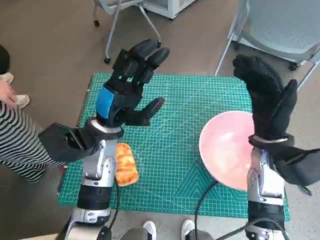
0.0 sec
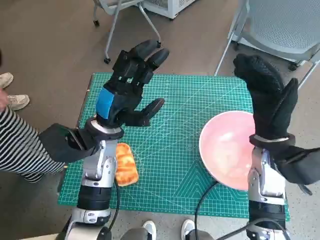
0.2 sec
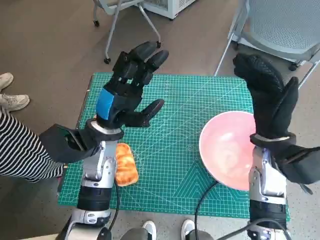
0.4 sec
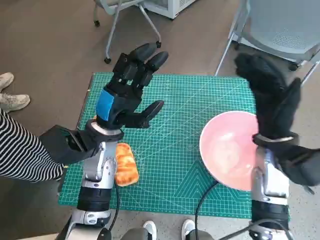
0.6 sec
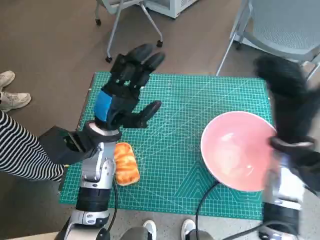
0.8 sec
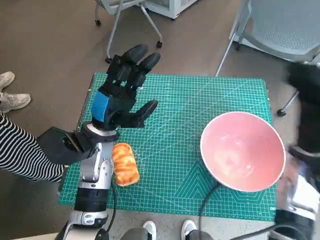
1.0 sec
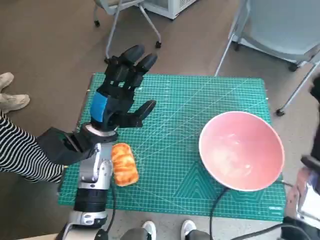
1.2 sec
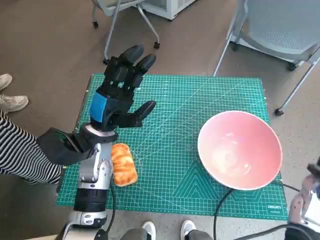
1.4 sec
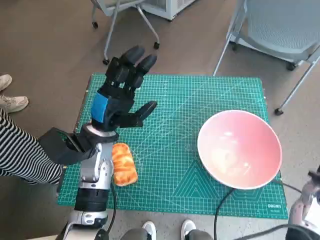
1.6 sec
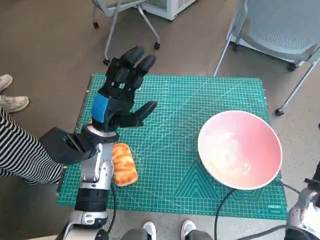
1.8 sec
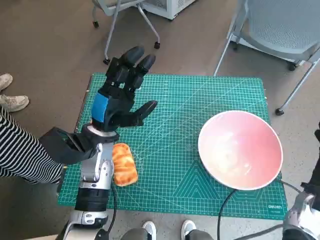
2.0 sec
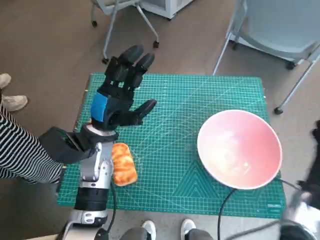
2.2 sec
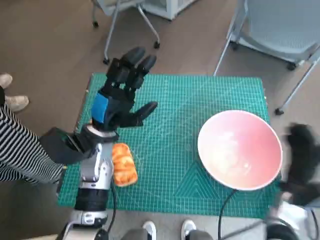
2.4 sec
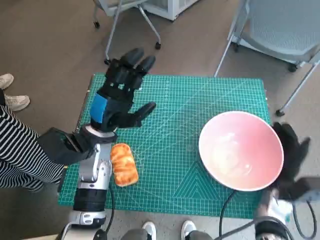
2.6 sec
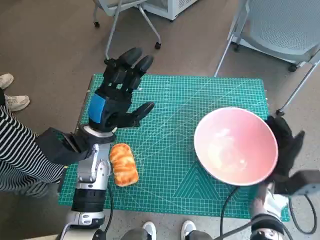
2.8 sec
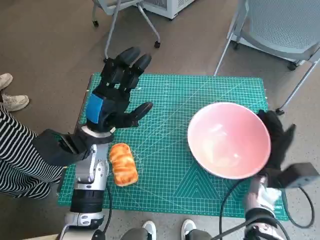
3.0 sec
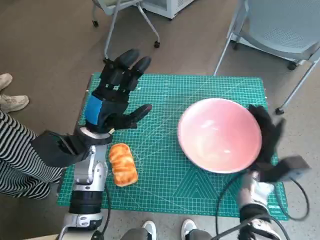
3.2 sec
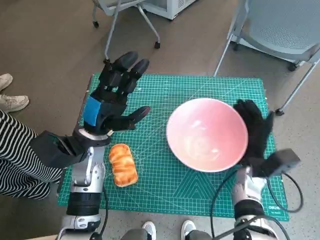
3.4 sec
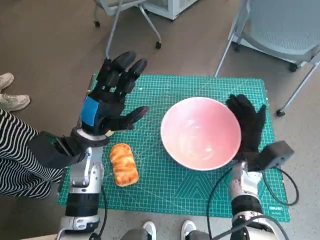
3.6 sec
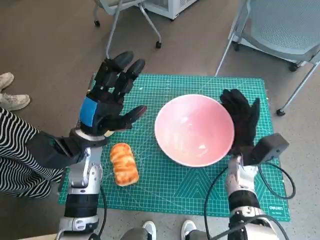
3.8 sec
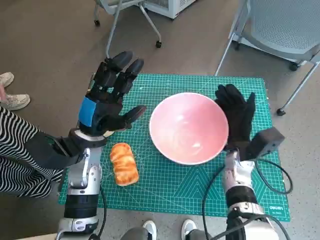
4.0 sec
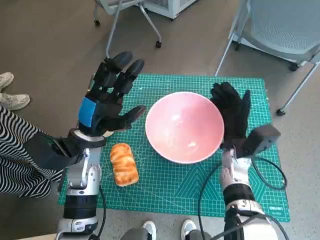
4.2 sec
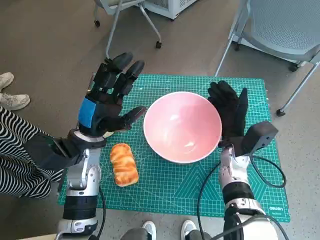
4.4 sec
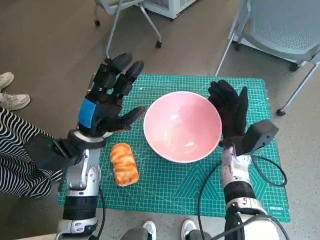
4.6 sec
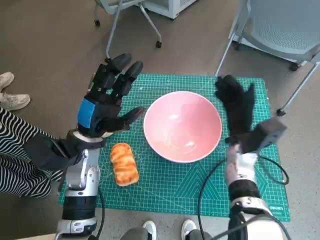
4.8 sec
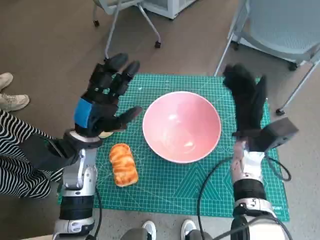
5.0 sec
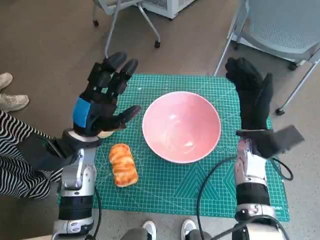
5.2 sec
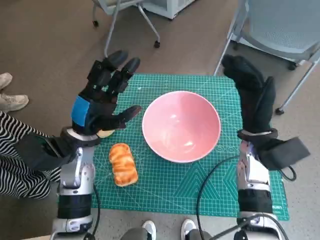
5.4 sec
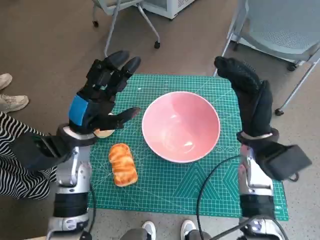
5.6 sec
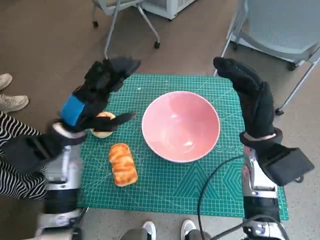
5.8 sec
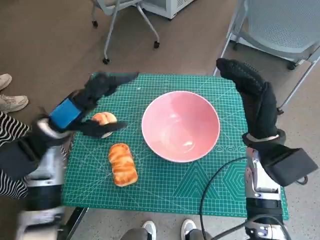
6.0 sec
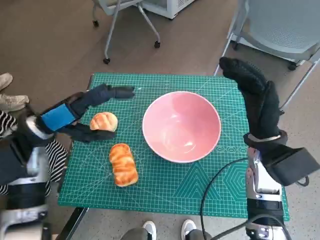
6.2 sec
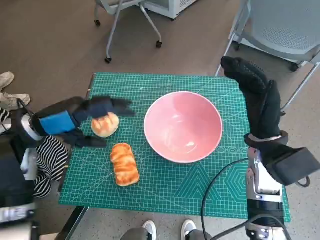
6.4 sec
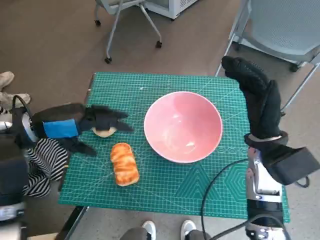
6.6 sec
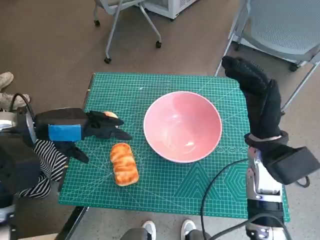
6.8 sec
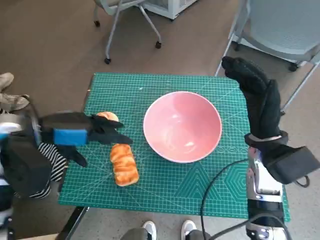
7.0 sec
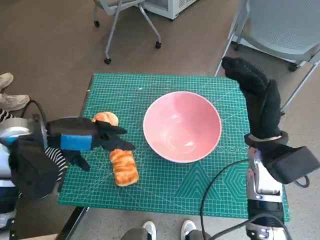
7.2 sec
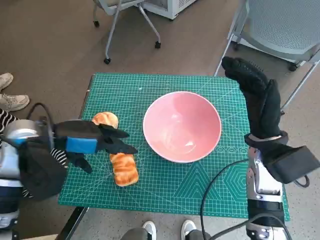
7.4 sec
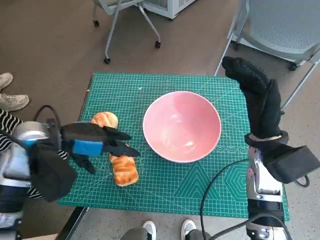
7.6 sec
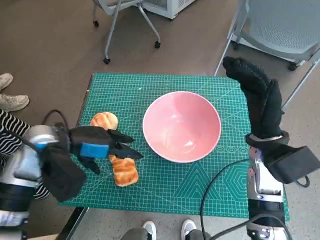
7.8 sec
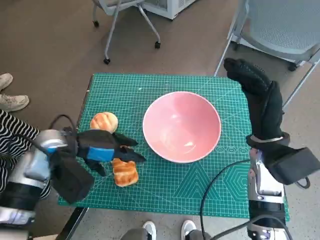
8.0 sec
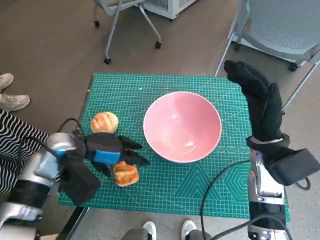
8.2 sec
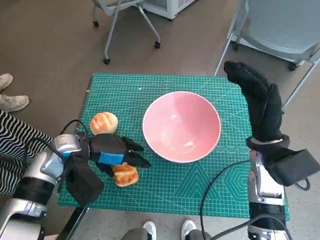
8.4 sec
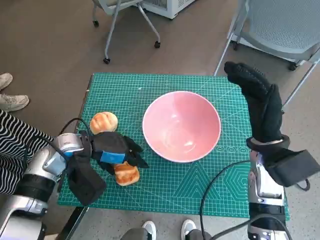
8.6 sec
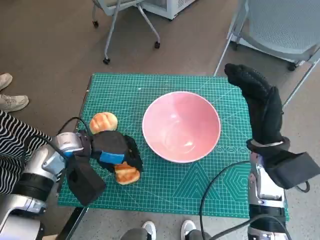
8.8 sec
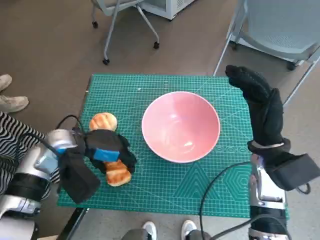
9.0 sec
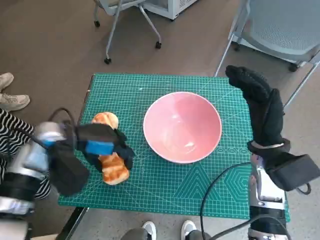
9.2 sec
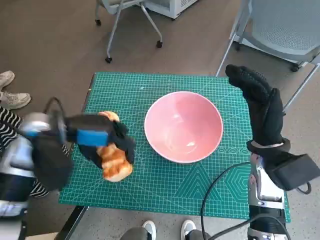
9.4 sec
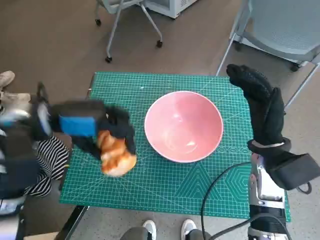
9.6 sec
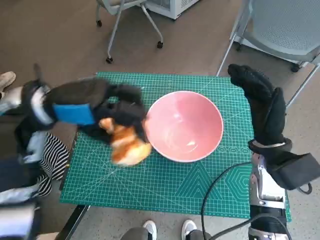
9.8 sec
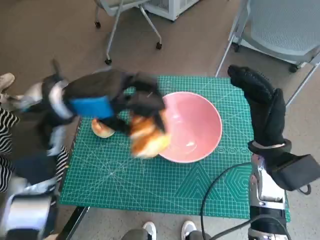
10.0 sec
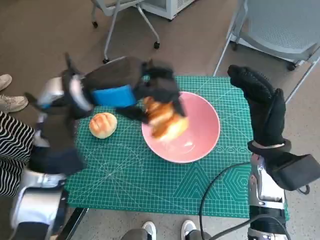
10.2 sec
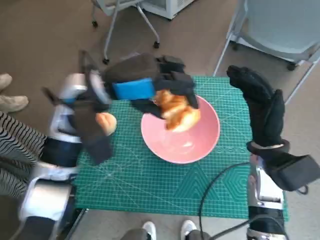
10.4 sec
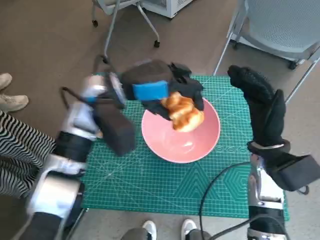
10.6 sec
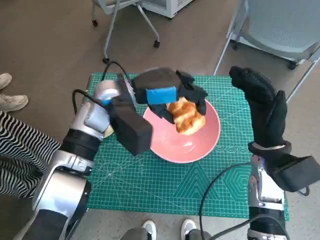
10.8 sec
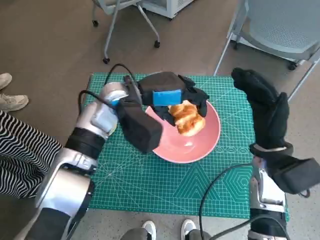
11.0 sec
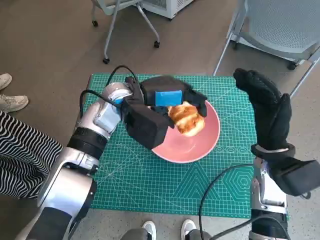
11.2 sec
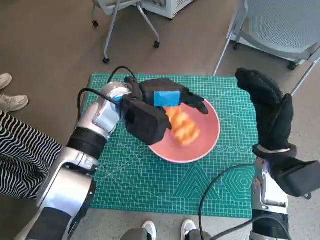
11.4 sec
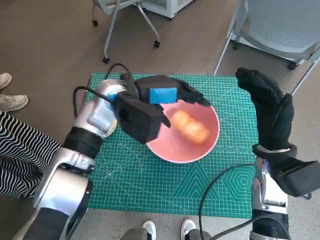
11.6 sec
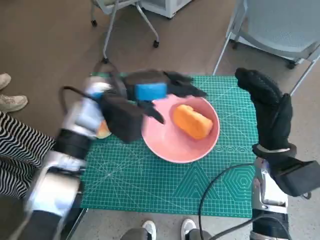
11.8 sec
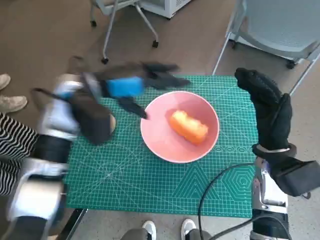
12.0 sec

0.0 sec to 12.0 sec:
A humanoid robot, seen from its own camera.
Task of the whole recording: Push the bowl into the center of the table and put the bread into the bowl.
Step, 0.0 sec to 4.6 sec: Move the pink bowl to the center of table with right hand.
Step, 4.8 sec to 8.8 sec: Grasp the long bread with left hand.
Step, 9.0 sec to 11.6 sec: Place the long bread in pink bowl with left hand.
1.6 sec to 3.0 sec: The right hand travels downward and to the left by roughly 10 cm.
3.0 sec to 4.4 sec: The right hand is displaced to the left and forward by some 10 cm.
4.4 sec to 6.0 sec: The left hand changes place by some 5 cm; the right hand goes about 10 cm upward.
7.6 sec to 9.0 sec: The left hand shifts about 5 cm downward.
9.0 sec to 10.4 sec: The left hand shifts roughly 15 cm upward and to the right.

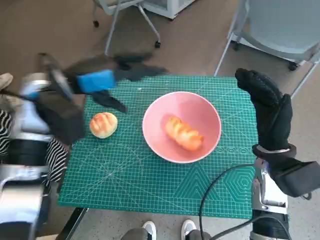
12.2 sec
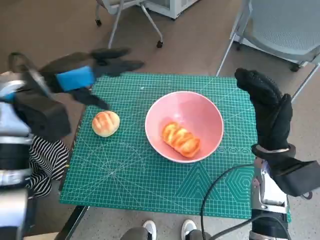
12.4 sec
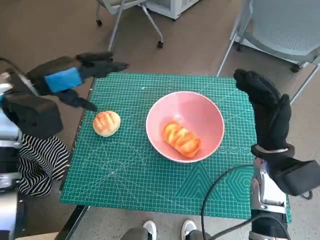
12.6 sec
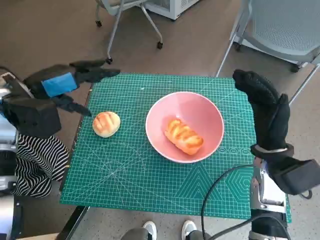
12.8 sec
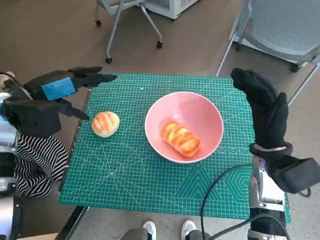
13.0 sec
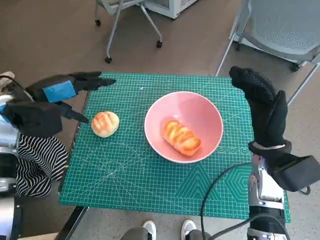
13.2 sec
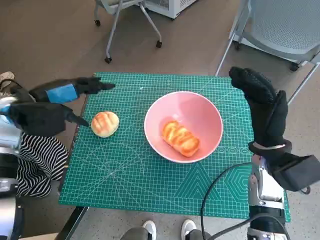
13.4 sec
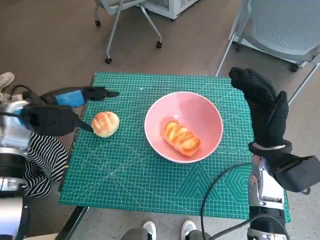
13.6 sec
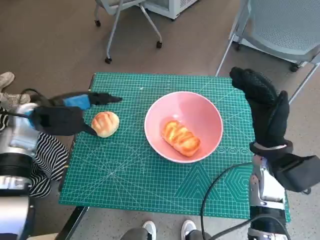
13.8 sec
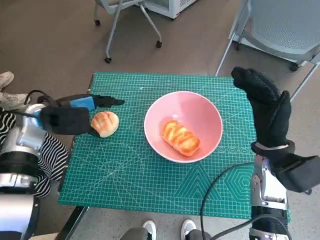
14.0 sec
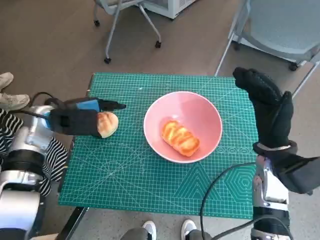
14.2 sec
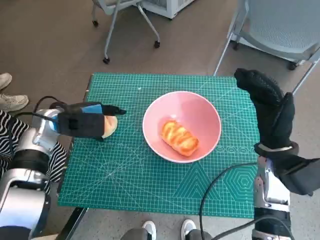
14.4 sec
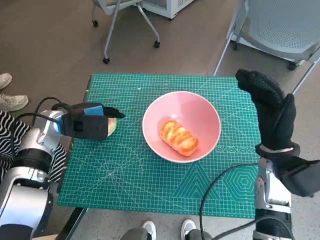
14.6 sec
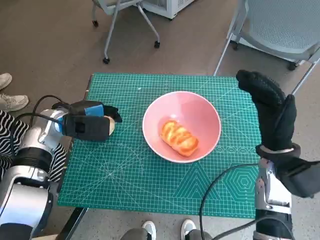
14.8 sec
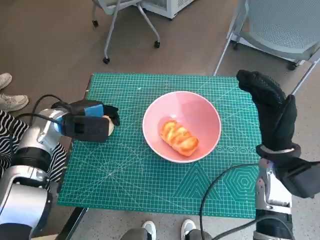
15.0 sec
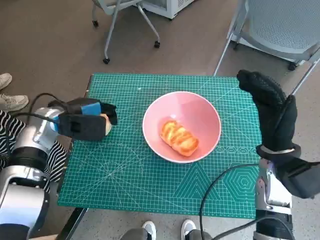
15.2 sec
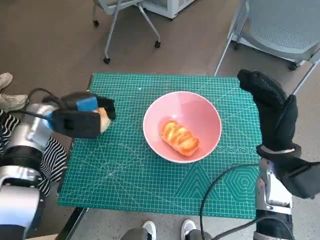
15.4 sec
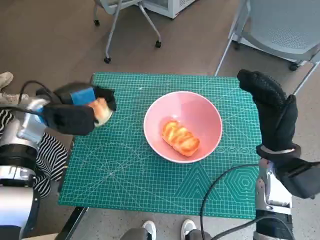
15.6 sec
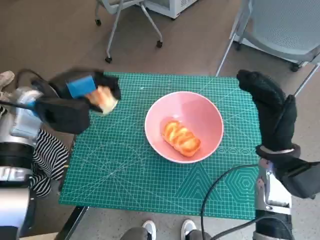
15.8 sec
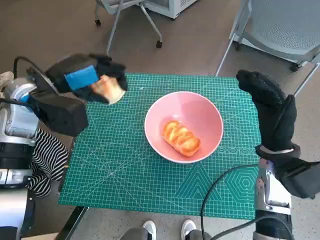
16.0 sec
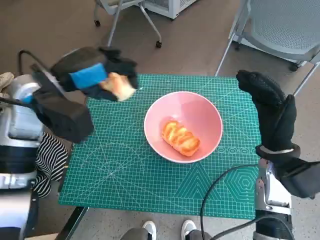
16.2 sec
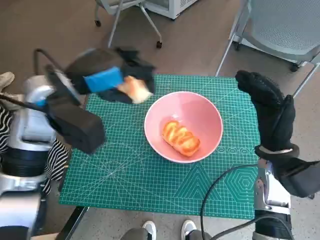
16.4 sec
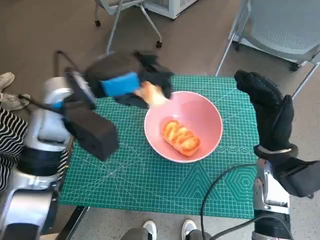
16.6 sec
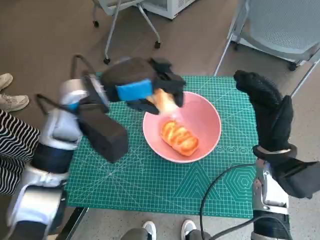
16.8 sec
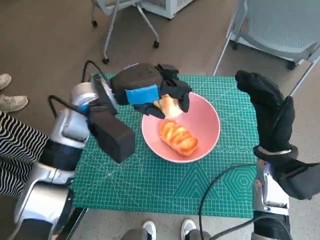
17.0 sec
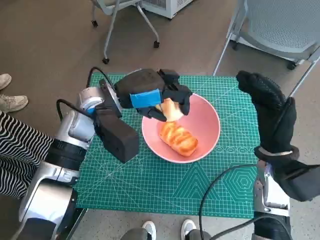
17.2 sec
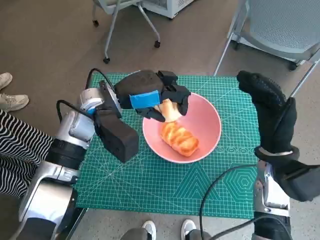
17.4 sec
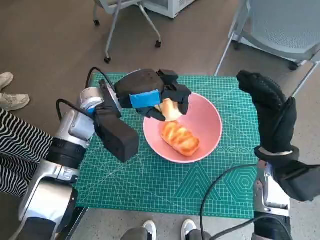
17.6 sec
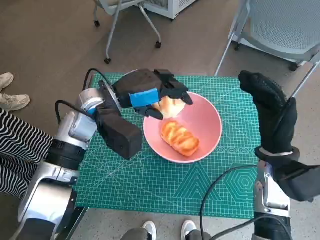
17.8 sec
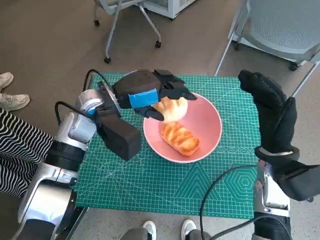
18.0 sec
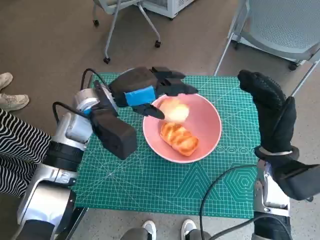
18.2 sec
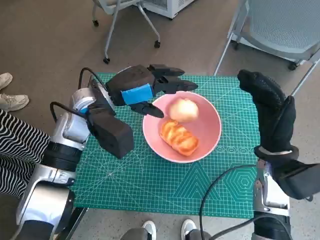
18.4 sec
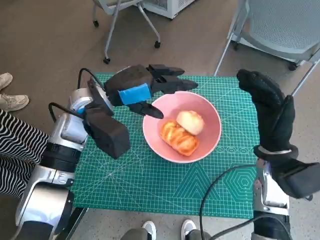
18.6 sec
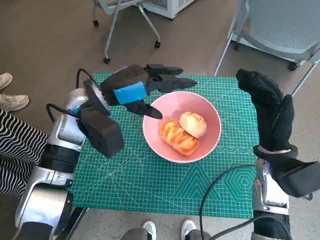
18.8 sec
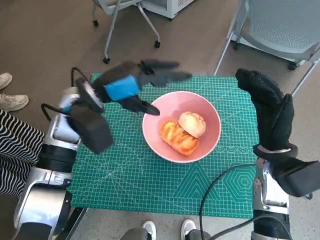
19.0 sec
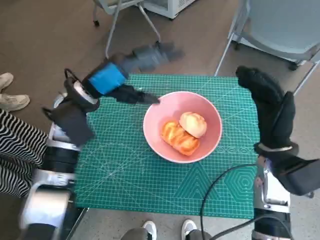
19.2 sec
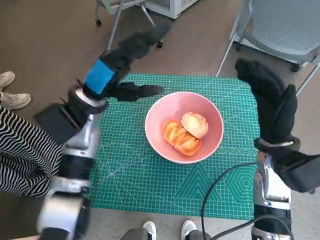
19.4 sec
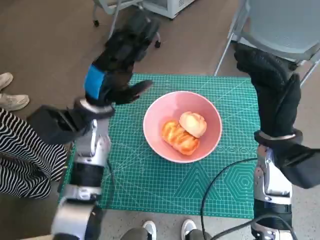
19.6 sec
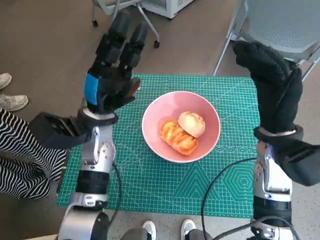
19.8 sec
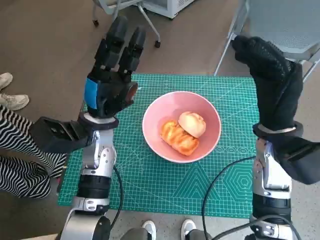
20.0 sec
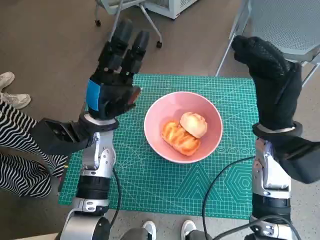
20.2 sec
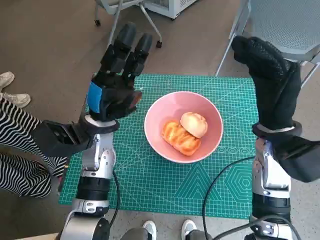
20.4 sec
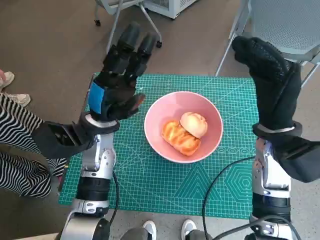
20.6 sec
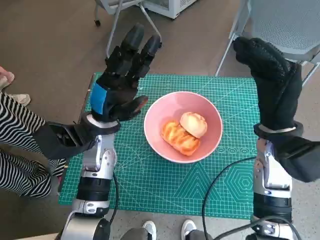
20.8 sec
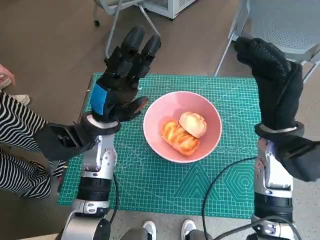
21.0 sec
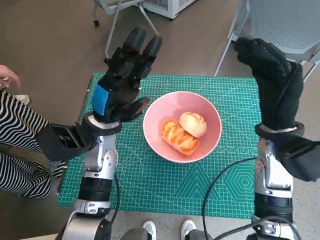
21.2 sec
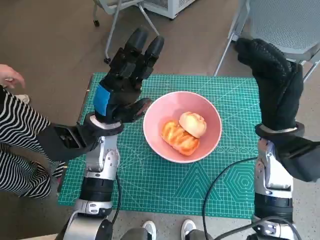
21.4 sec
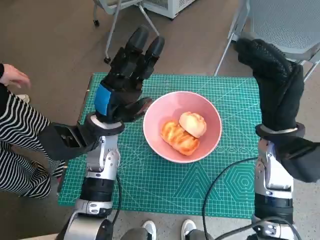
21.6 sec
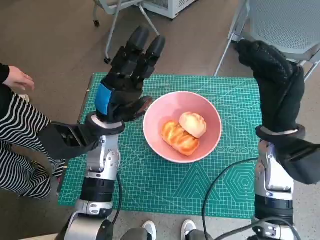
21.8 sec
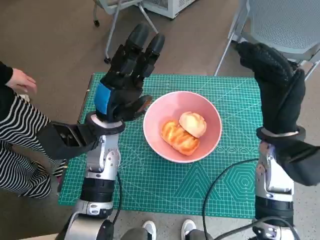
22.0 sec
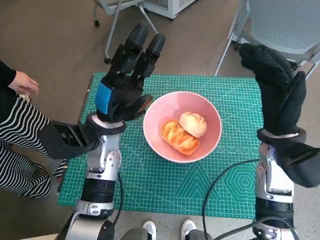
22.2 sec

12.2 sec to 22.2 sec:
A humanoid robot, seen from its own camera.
Task of the whole recording: Push the bowl into the center of the table and put the bread into the bowl.
Step, 12.2 sec to 15.0 sec: Grasp the round bread with left hand.
Step, 15.2 sec to 18.6 sec: Place the round bread in pink bowl with left hand.
12.2 sec to 13.6 sec: The left hand travels to the left by roughly 10 cm.
13.6 sec to 15.0 sec: The left hand shifts roughly 5 cm downward.
15.0 sec to 16.4 sec: The left hand heads upward and to the right, covering about 15 cm.
16.4 sec to 18.0 sec: The left hand shifts roughly 10 cm downward and to the right.
19.4 sec to 20.8 sec: The left hand shifts about 5 cm downward.
20.8 sec to 22.2 sec: Neither hand changes place.
